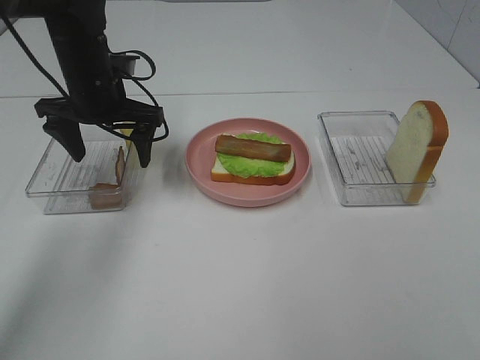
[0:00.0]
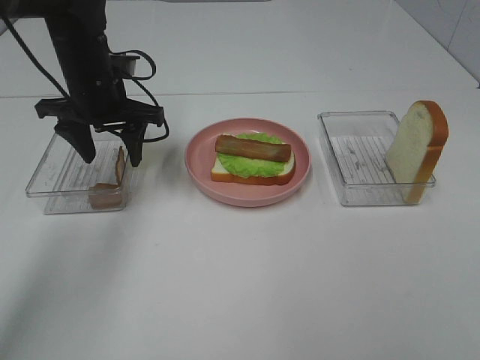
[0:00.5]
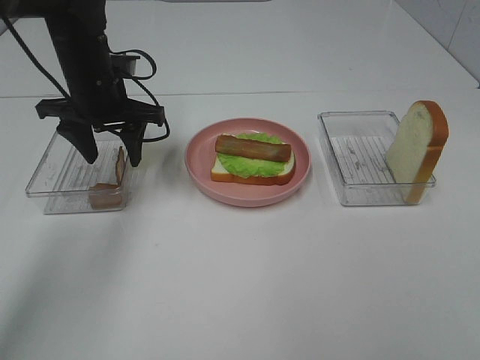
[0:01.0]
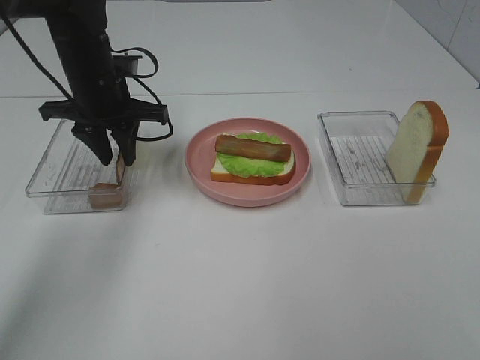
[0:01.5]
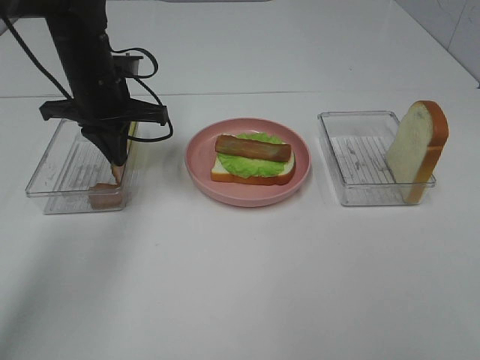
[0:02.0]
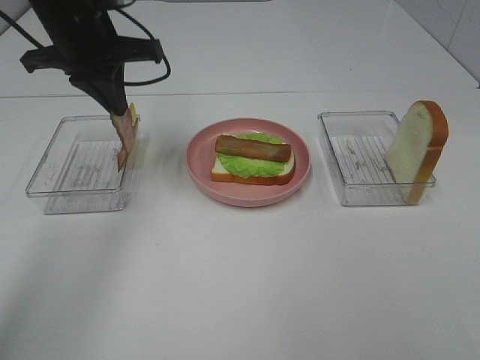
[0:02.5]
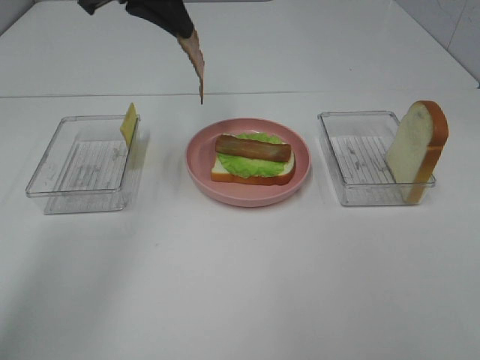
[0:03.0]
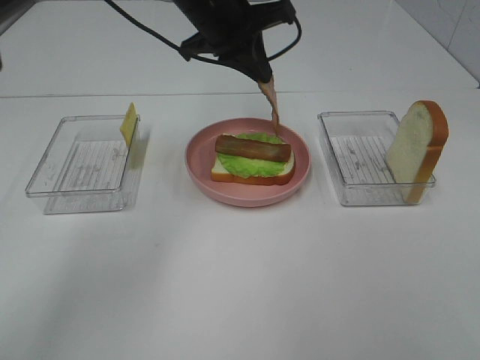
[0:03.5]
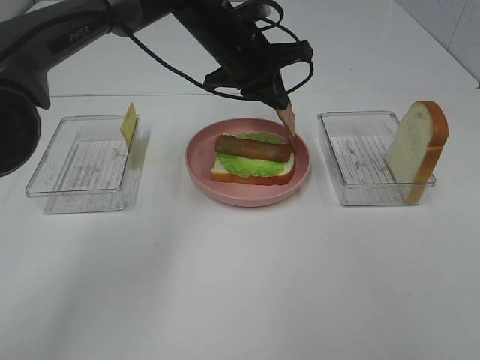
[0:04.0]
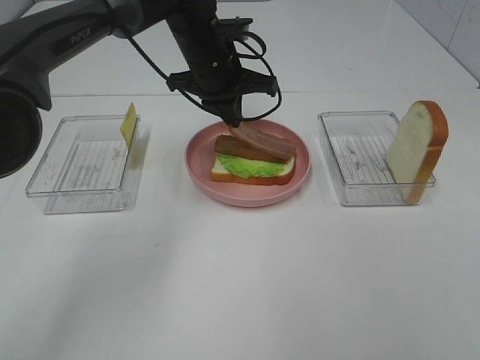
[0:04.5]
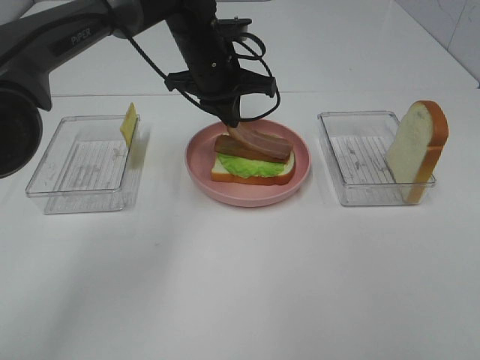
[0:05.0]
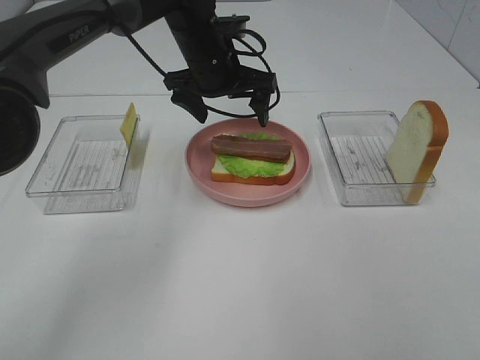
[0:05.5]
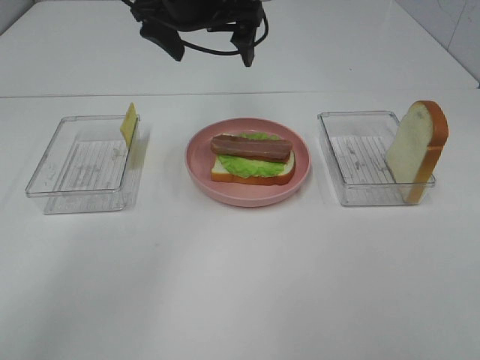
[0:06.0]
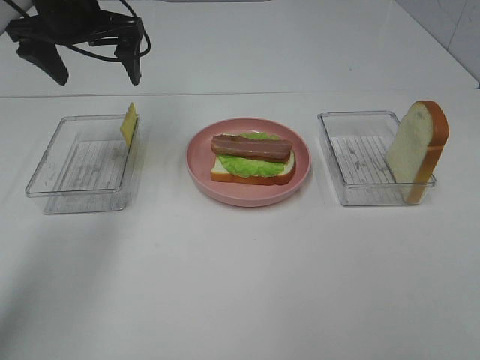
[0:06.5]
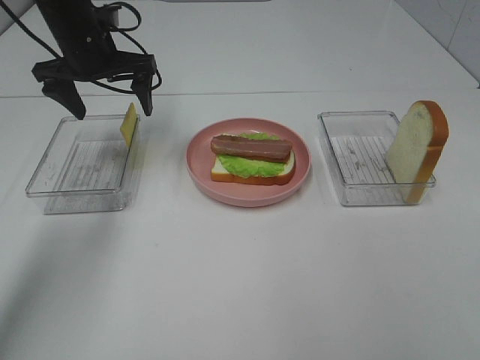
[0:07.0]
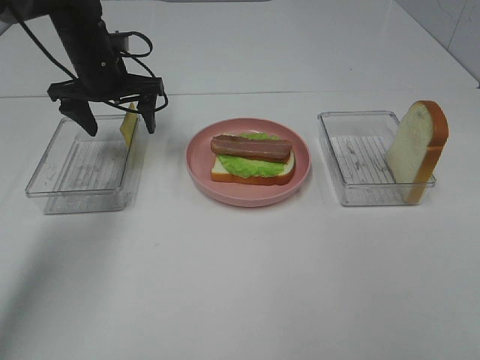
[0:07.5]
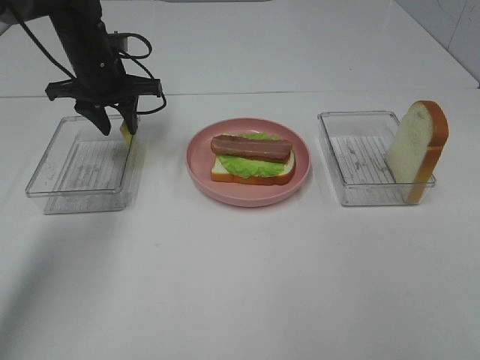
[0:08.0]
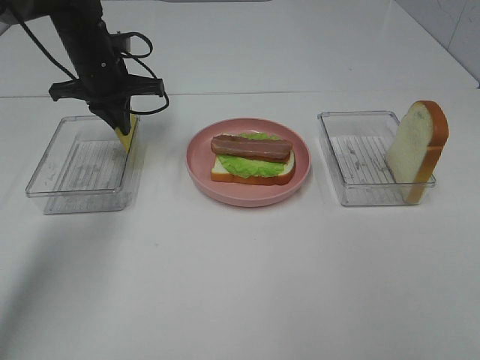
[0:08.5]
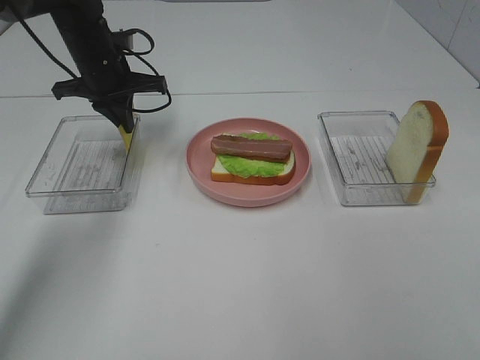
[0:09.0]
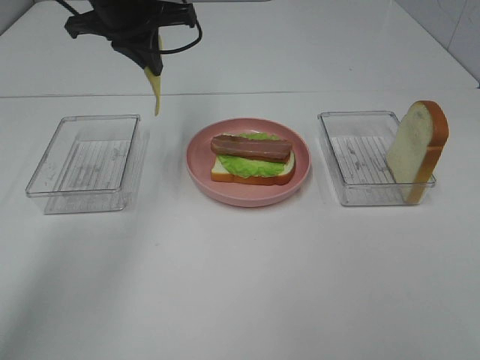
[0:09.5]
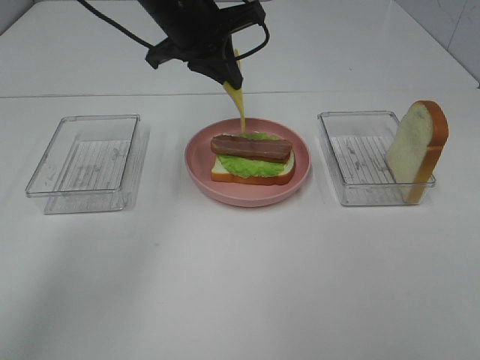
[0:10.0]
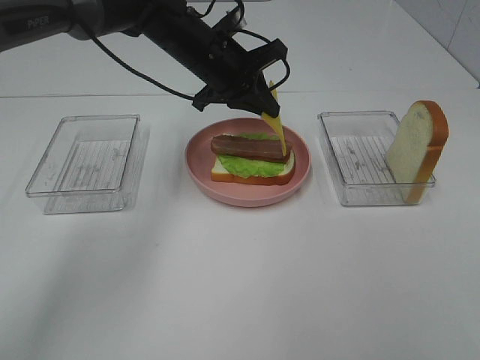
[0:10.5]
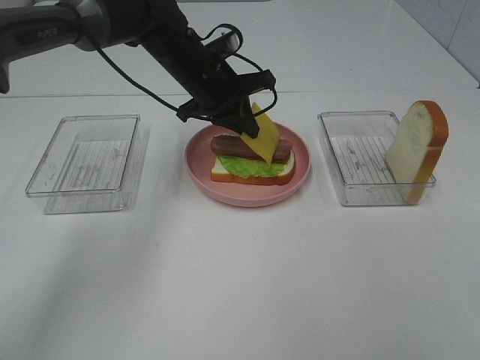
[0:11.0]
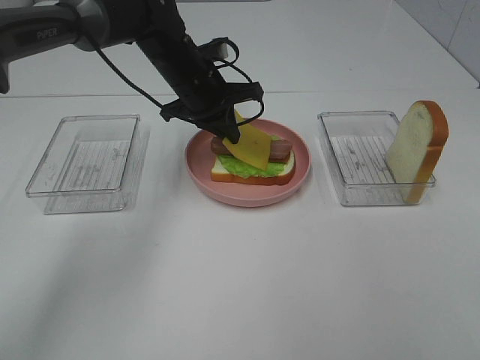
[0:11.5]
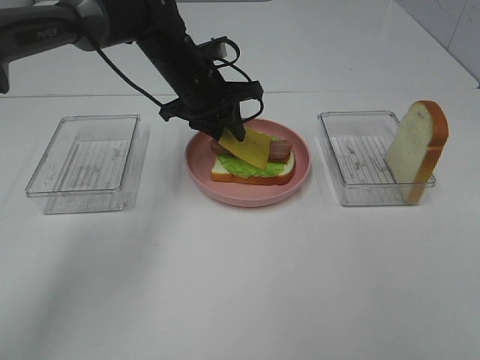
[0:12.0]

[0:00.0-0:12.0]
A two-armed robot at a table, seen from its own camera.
Task of the whole recording: Make sandwiches.
Step, 0:00.0 to 0:02.0: Left hand:grab the bacon.
Step, 0:02.5 to 0:05.0: Left hand:place bacon on bacon.
Step, 0:05.5 to 0:08.0: Left hand:grab the cheese slice.
0:00.0 to 0:02.0: The left gripper closes.
0:02.0 to 0:04.0: The left gripper shifts some 15 cm to the right.
0:04.0 to 0:06.0: The left gripper is displaced upward and to the left by approximately 10 cm, and opens its fingers.
0:06.0 to 0:08.0: The left gripper shifts roughly 20 cm to the left and downward, and closes up.
0:08.0 to 0:10.0: The left gripper shifts roughly 15 cm to the right and upward, and closes its fingers.
0:10.0 to 0:12.0: The left gripper shifts approximately 10 cm downward, and opens.

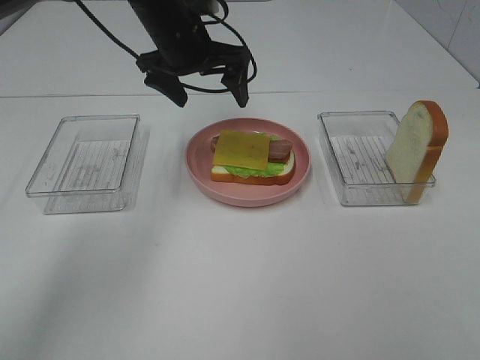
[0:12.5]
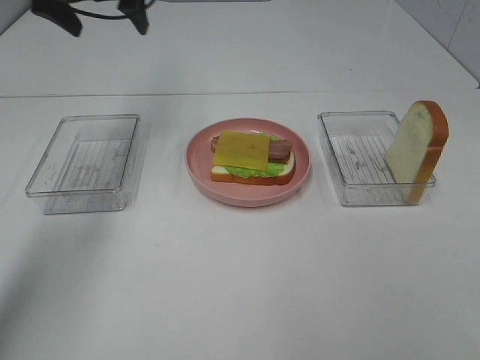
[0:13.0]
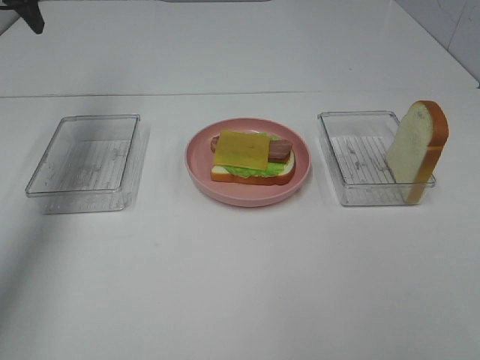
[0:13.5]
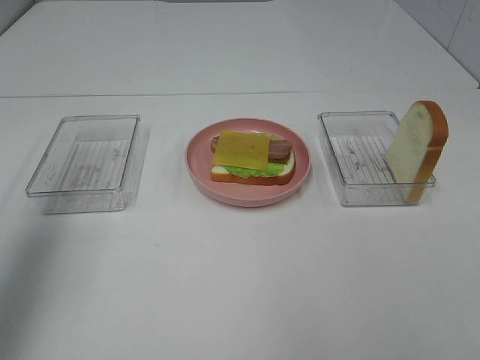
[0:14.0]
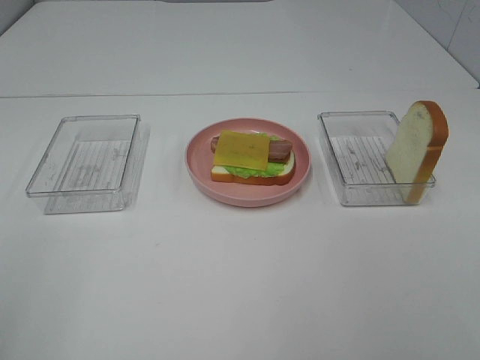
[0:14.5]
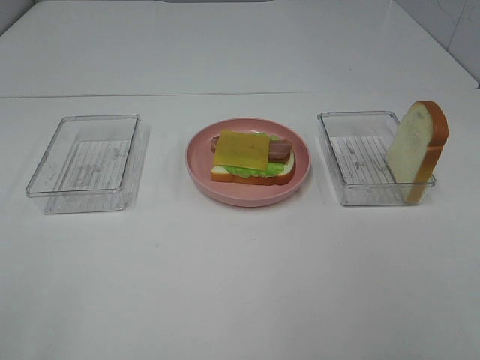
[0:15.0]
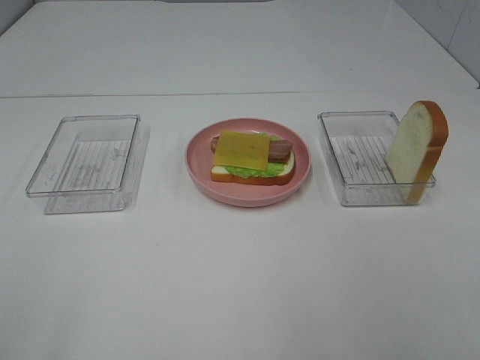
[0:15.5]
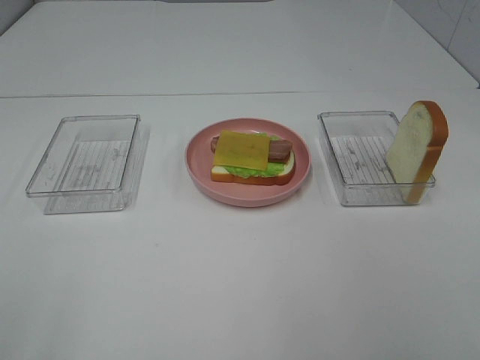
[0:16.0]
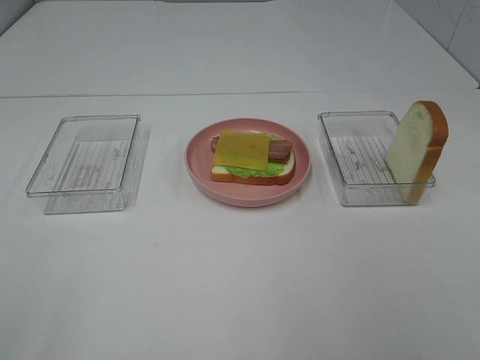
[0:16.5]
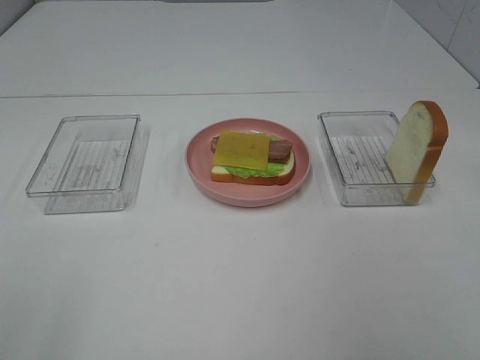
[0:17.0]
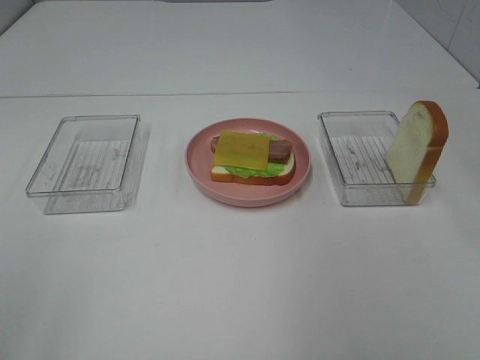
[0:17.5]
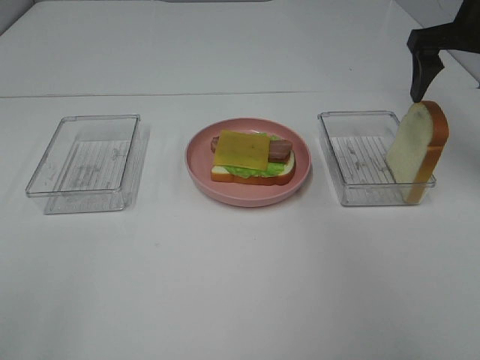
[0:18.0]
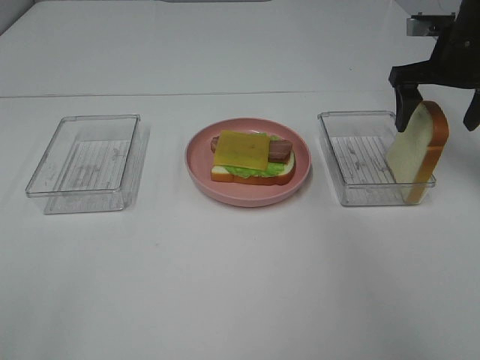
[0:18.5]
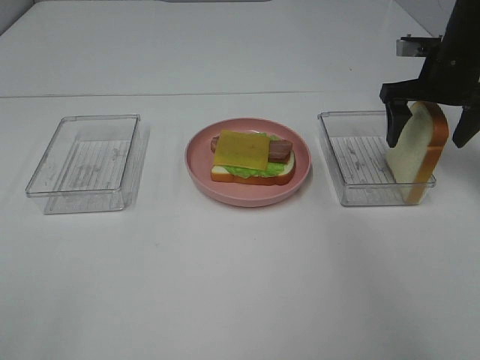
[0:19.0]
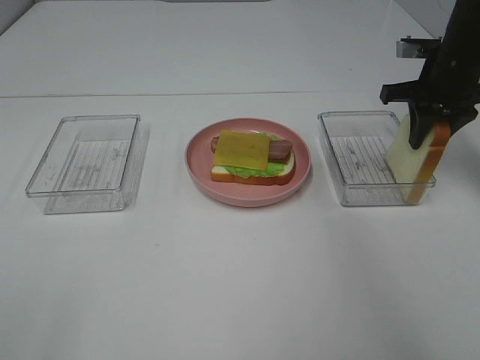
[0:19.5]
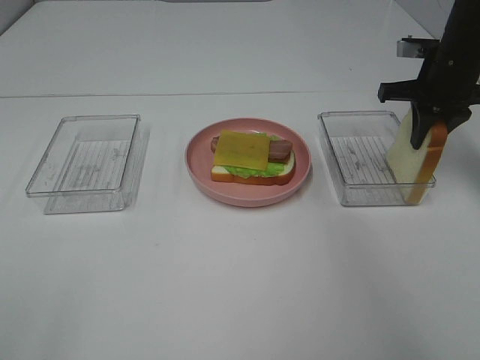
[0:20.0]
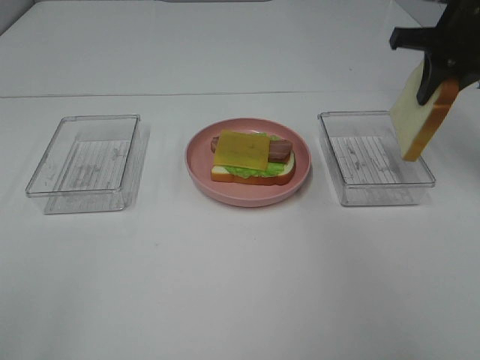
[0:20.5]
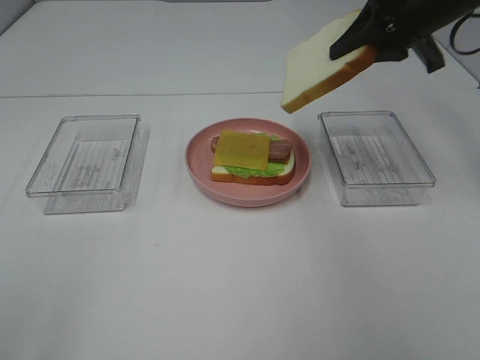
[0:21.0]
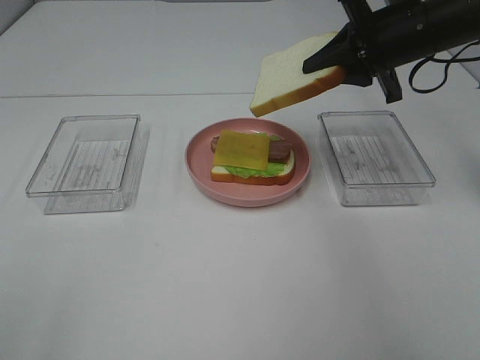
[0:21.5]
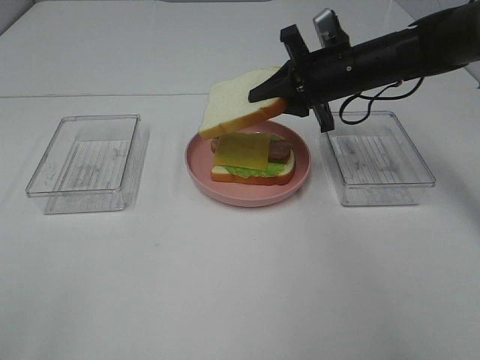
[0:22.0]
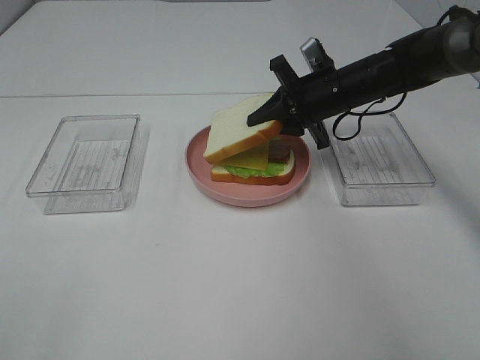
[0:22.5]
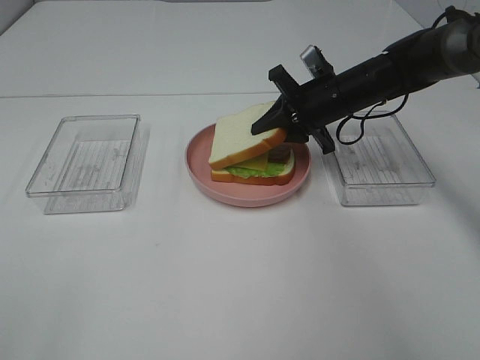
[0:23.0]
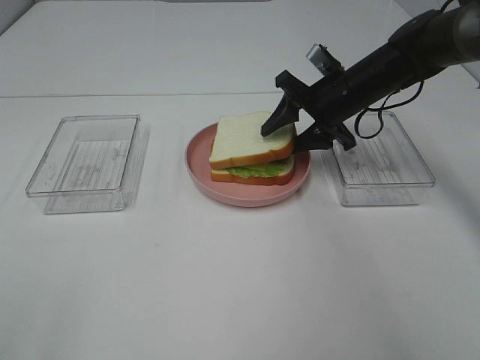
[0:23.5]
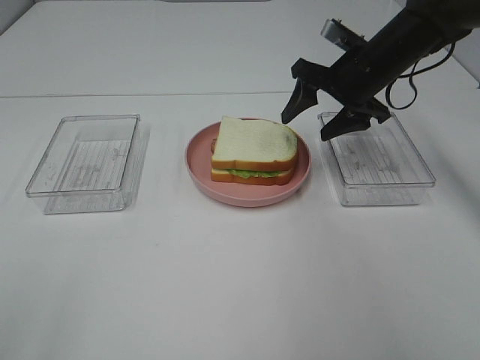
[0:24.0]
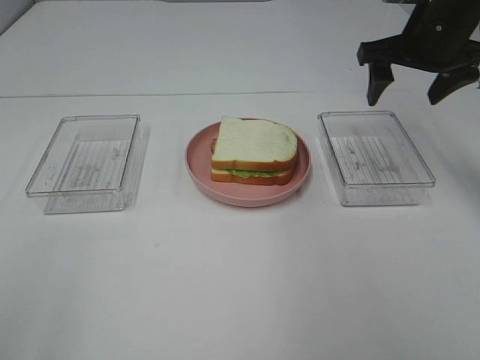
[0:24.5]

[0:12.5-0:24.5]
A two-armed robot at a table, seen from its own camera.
Task of the whole recording: Make sandwiches.
Step, 0:12.5 to 0:19.5: Right hand:grab the bread slice.
Step, 0:20.0 to 0:24.0: Right hand:place the bread slice on the cheese slice.
0:12.5 to 0:14.5: The left gripper is displaced backward and to the left by some 50 cm.
0:16.5 to 0:18.5: The right gripper shifts approximately 40 cm forward.
0:18.5 to 0:20.5: The right gripper closes up.
0:20.5 to 0:22.5: The right gripper shifts some 20 cm downward and to the left.
0:22.5 to 0:24.5: The right gripper travels upward and to the right by approximately 15 cm, and opens up.

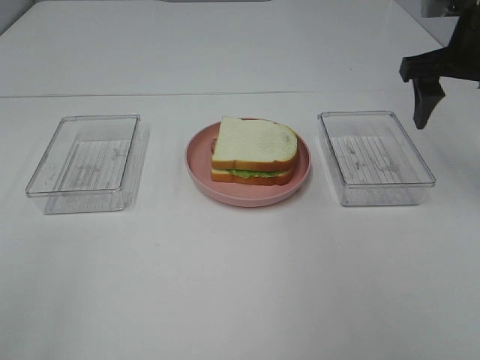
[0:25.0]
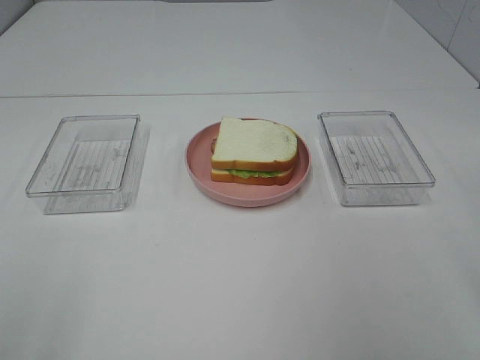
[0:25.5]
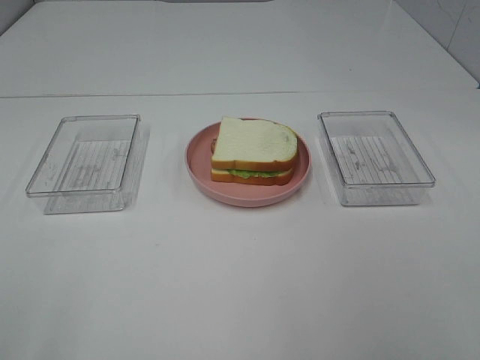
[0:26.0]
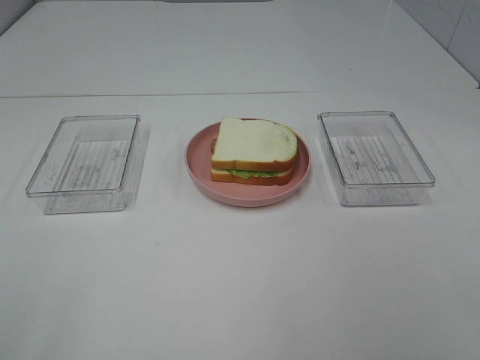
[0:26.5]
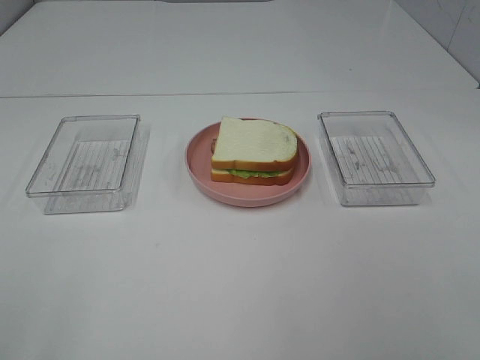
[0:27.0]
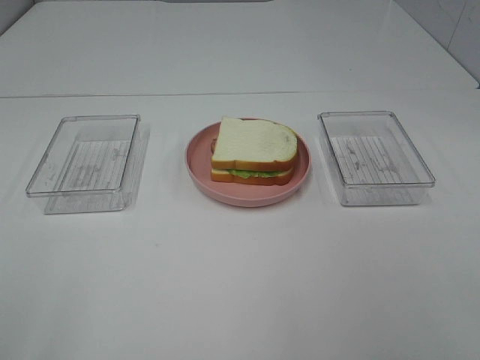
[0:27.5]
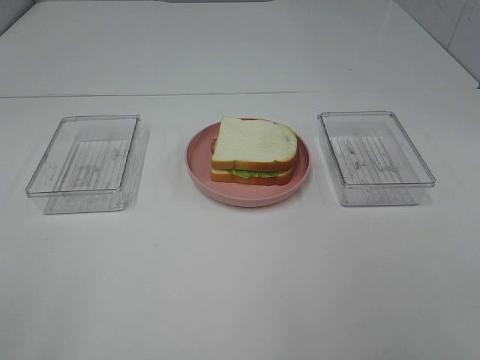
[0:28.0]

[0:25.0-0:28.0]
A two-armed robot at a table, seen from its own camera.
Task of the whole recording: Make sandwiches.
0:25.0 to 0:26.5: The right gripper is displaced backward by approximately 35 cm.
